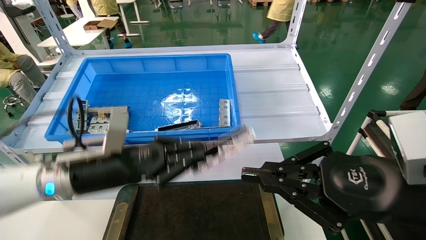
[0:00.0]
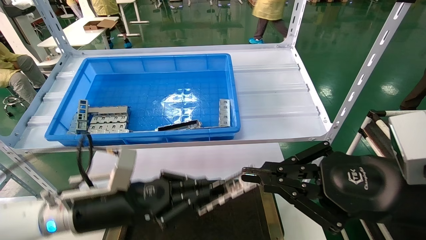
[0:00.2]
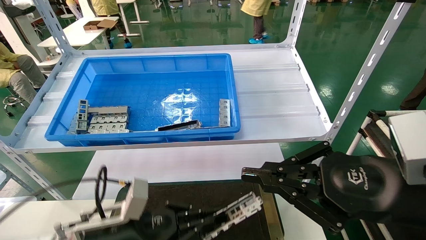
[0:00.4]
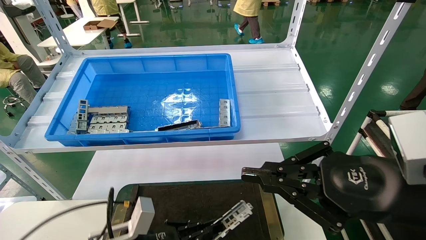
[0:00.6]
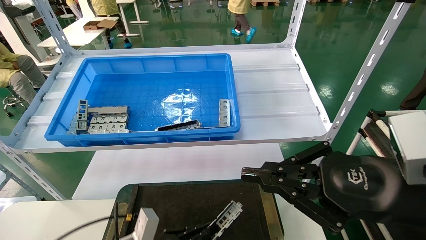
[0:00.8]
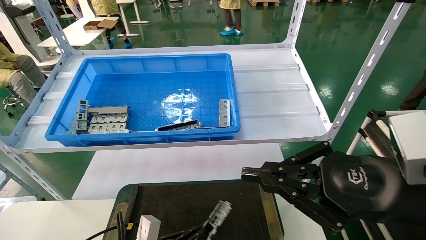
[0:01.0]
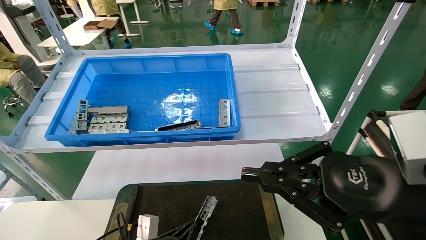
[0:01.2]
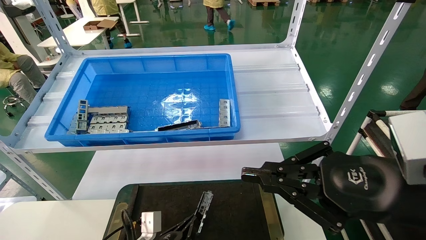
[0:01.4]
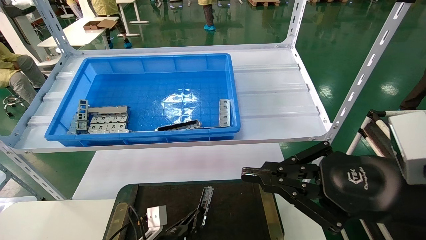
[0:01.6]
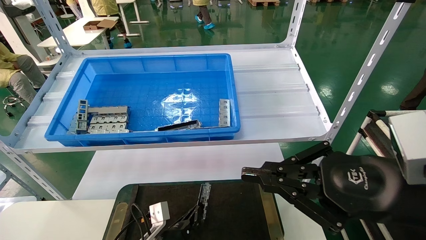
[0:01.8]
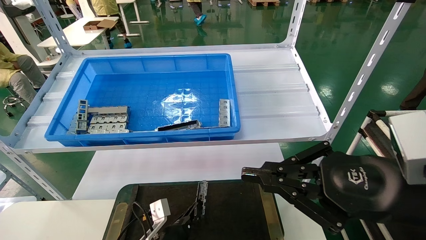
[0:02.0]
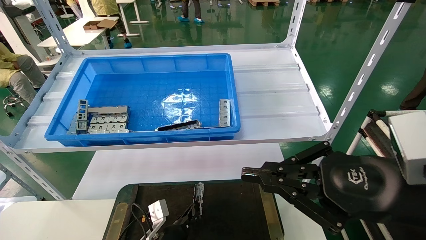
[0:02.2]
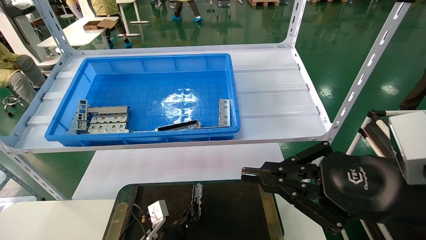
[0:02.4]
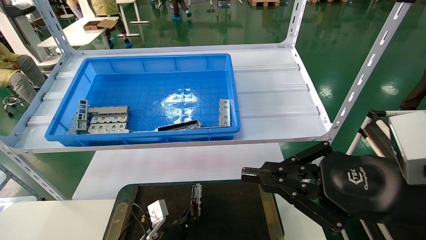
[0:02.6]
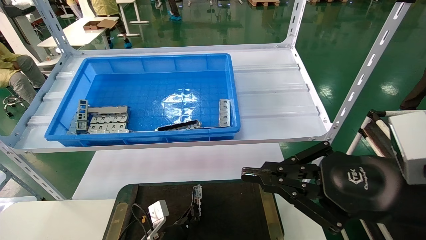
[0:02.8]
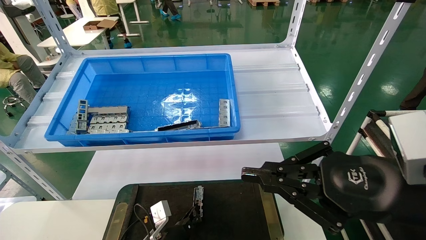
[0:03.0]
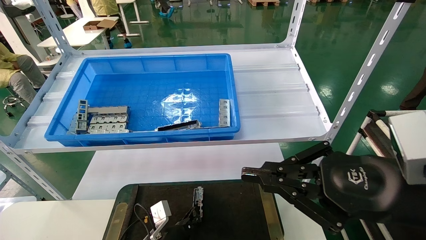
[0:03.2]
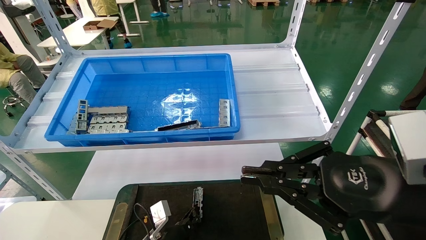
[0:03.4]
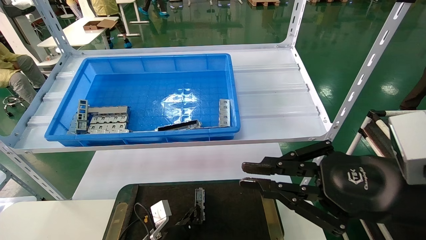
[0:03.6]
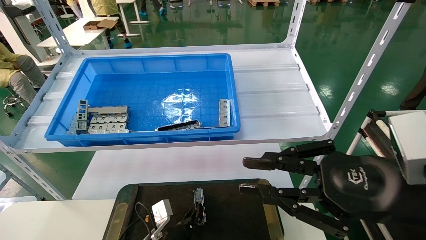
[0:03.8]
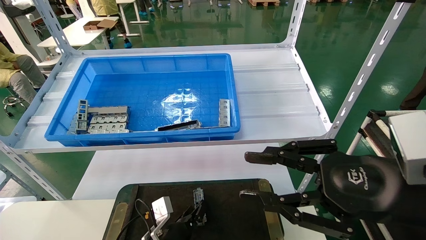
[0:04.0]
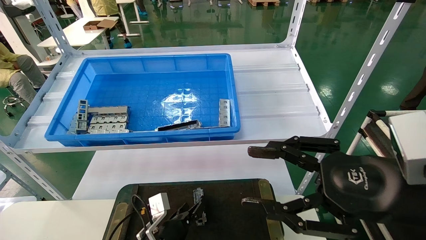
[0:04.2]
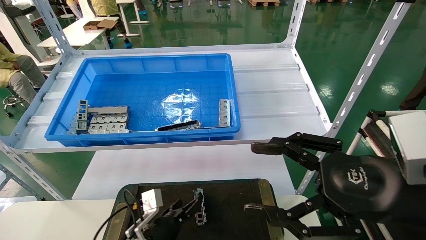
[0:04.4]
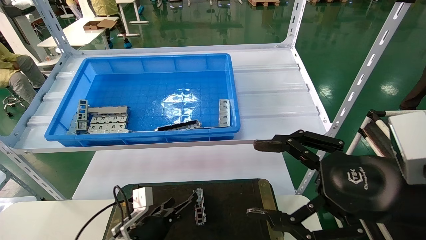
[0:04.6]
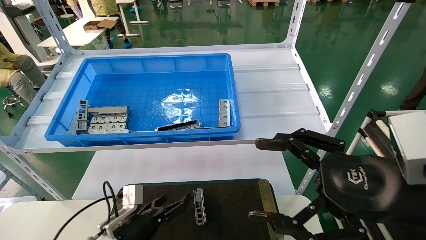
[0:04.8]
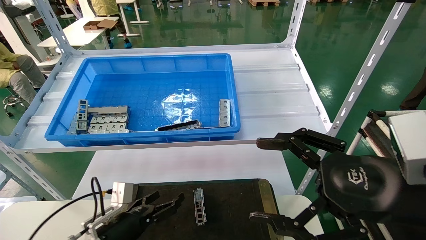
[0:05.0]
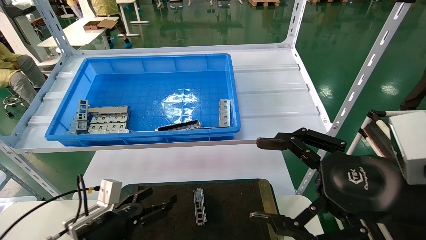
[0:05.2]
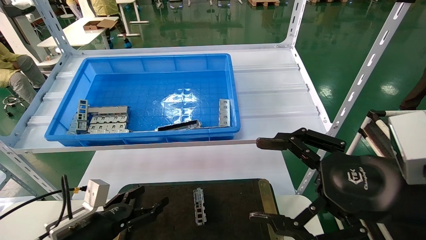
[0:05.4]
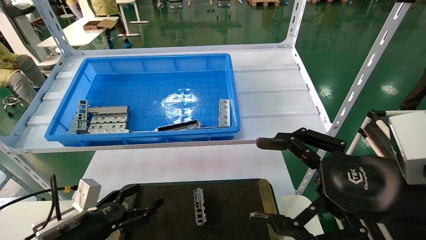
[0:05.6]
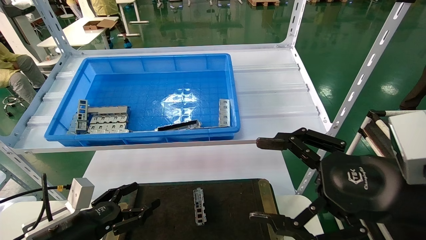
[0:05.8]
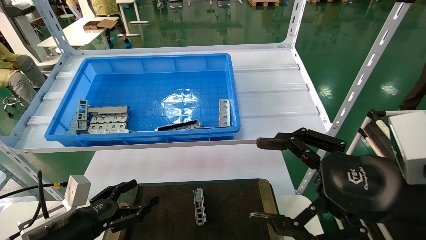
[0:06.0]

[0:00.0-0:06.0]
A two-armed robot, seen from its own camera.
Task of the whole recording: Grasp the part with one hand and place it on the black container.
Step, 0:00.0 to 0:04.0: Place the front USB bracket into the box.
0:00.0 to 0:01.6: The left gripper travels downward by some 25 cm.
0:01.6 to 0:03.0: The grippers move only a little.
0:03.0 to 0:04.4: The right gripper opens up. Meanwhile the left gripper moves approximately 5 cm, and opens up.
0:04.4 to 0:06.0: The right gripper opens its fingers. The left gripper travels to the left, upward and backward by roughly 20 cm, and opens.
